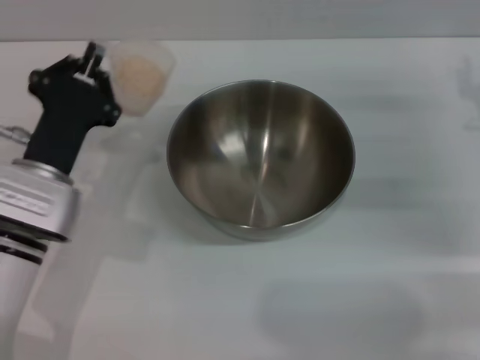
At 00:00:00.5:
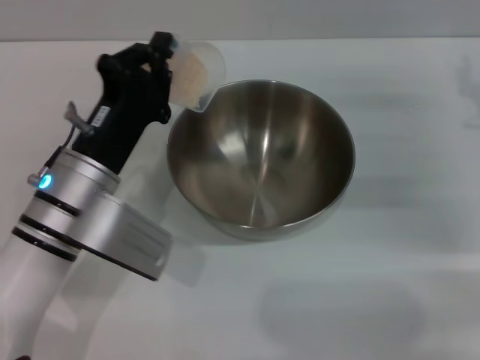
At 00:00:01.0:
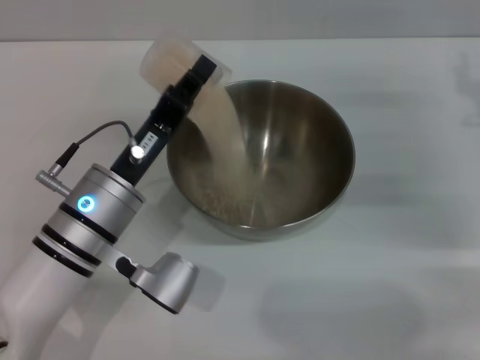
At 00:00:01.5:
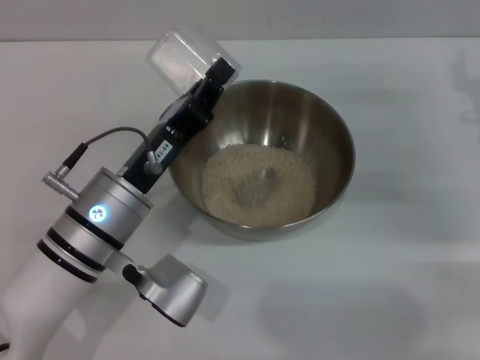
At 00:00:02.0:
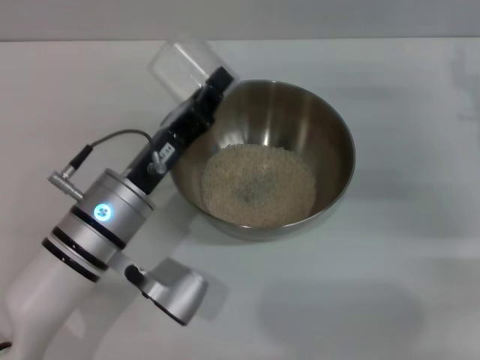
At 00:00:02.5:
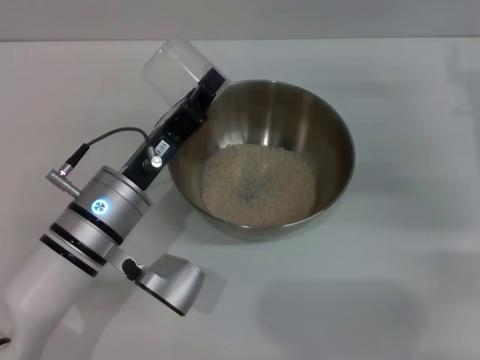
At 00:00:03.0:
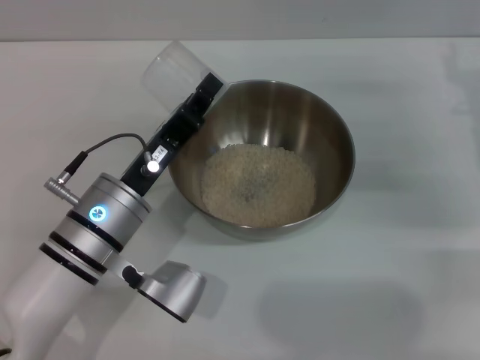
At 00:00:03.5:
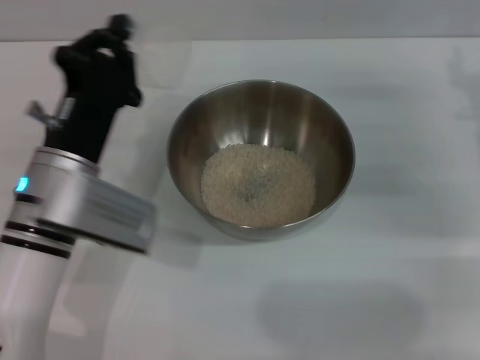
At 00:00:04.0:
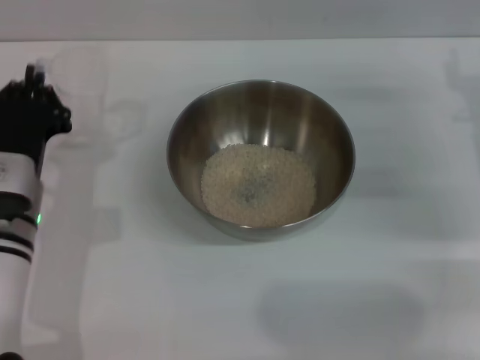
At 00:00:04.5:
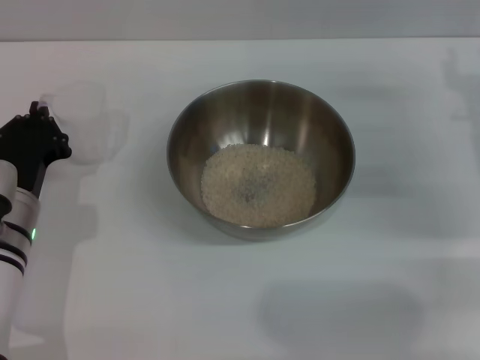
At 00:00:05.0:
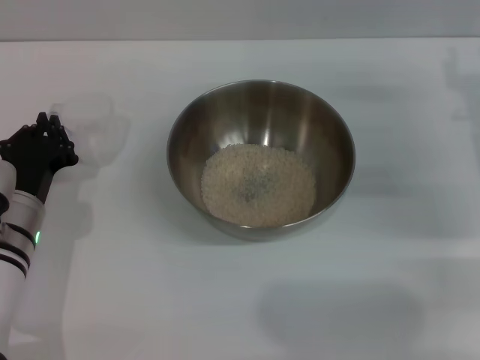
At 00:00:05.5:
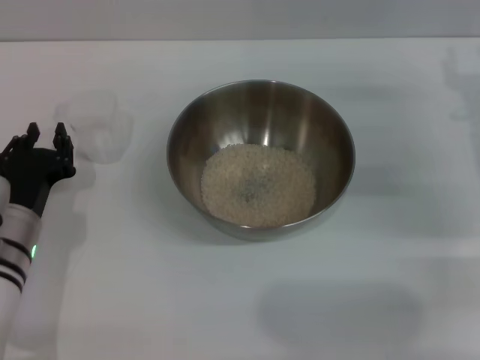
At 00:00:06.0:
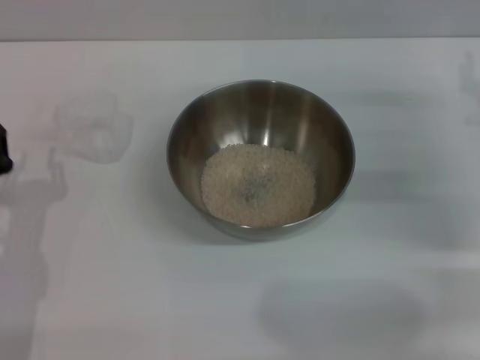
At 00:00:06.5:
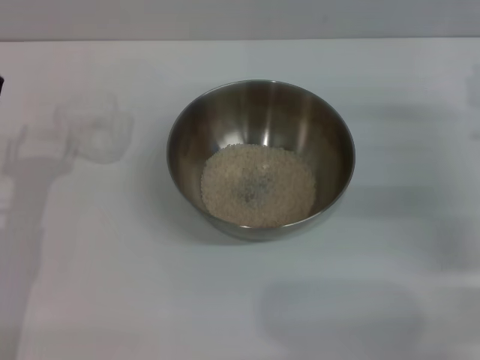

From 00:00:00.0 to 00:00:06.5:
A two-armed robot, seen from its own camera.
Task of the whole recording: Place the bowl in the middle of the table with one hand and pour the rice from the grain cup into it with the other hand.
Step, from 00:00:00.0 to 00:00:01.0: Pour the rice from the cup into the bowl with the left gripper.
Step, from 00:00:01.5 to 00:00:05.5: Place the cup on the table with the left gripper.
From 00:00:00.0 to 00:00:02.0: The left gripper moves to the right, roughly 5 cm.
From 00:00:02.0 to 00:00:04.5: The left gripper travels to the left by about 10 cm.
From 00:00:04.5 to 00:00:06.5: The left gripper shifts by roughly 5 cm, and opens up.
